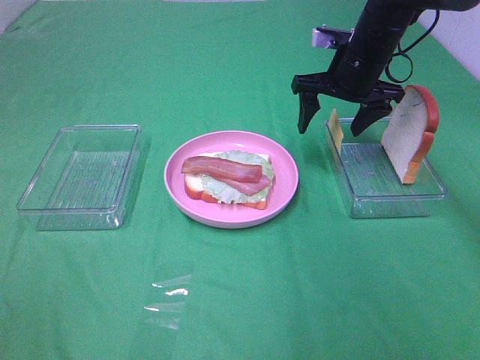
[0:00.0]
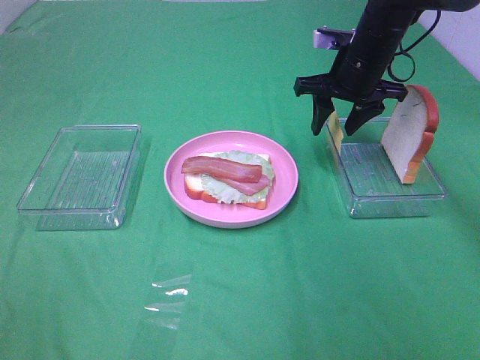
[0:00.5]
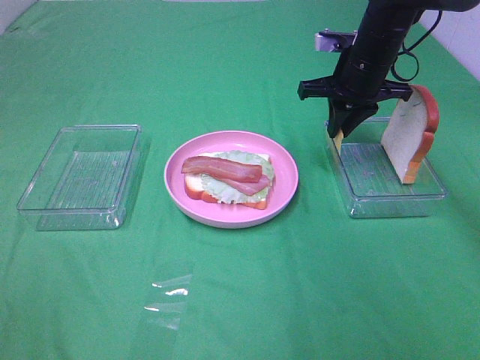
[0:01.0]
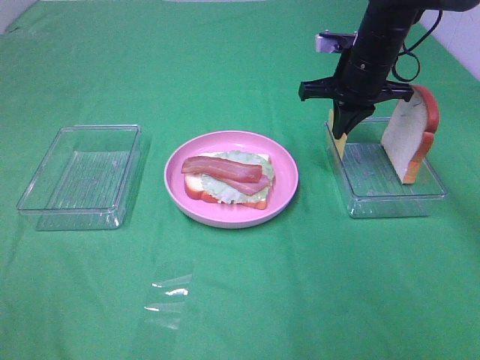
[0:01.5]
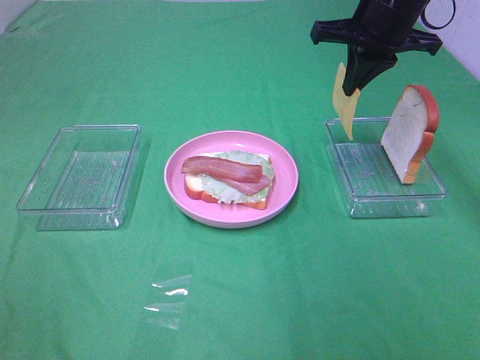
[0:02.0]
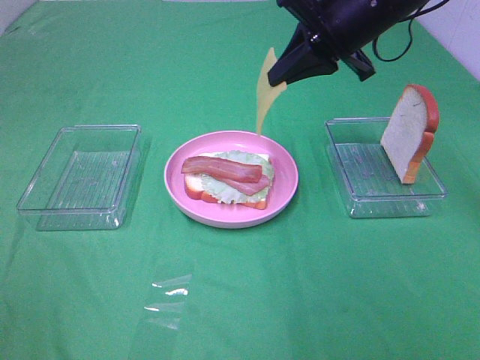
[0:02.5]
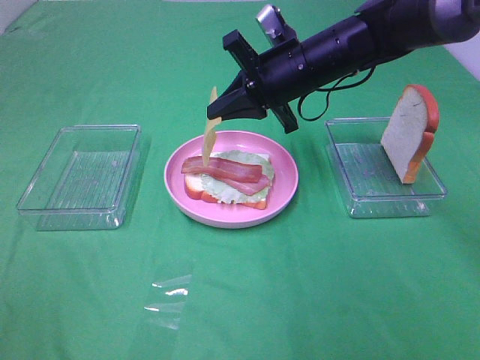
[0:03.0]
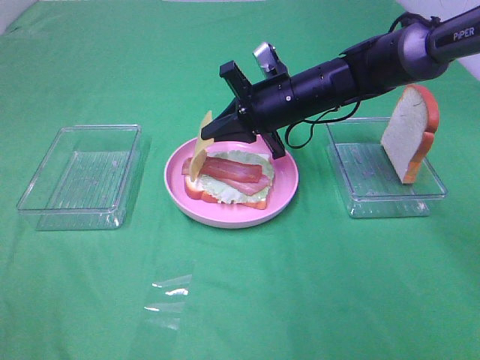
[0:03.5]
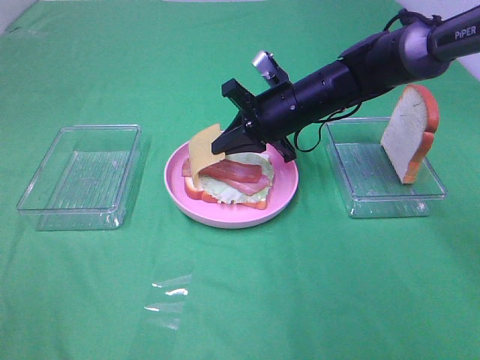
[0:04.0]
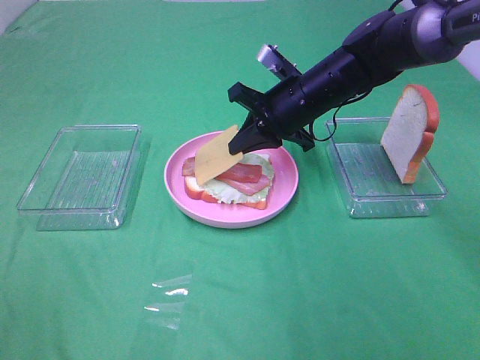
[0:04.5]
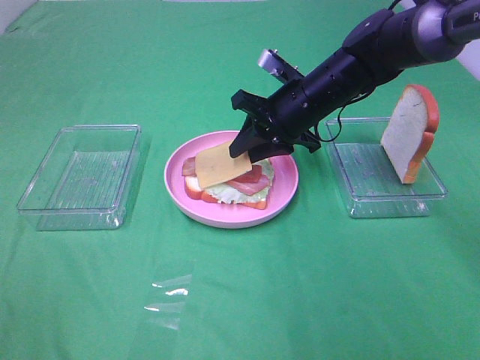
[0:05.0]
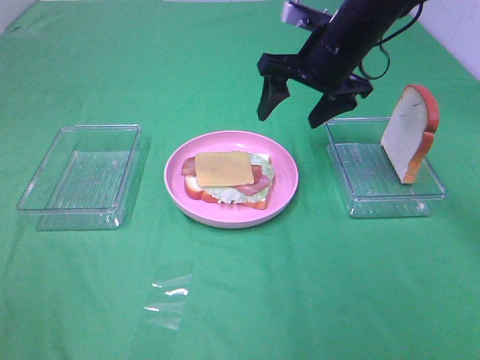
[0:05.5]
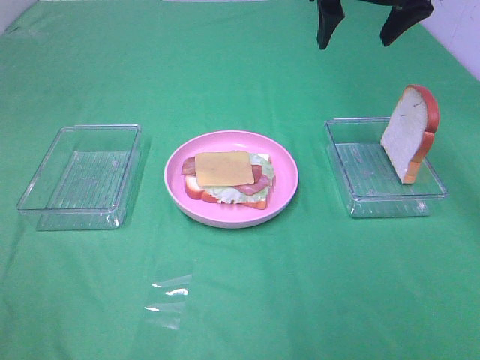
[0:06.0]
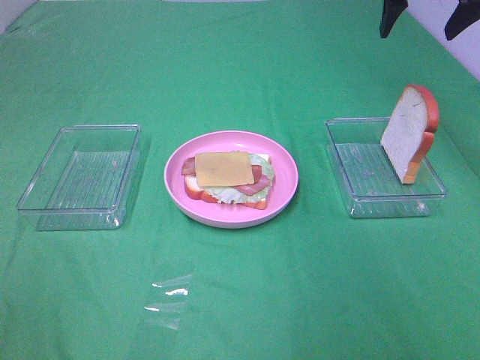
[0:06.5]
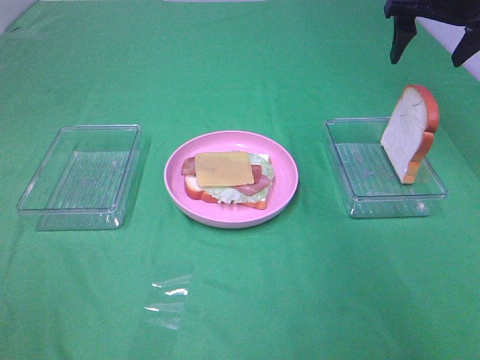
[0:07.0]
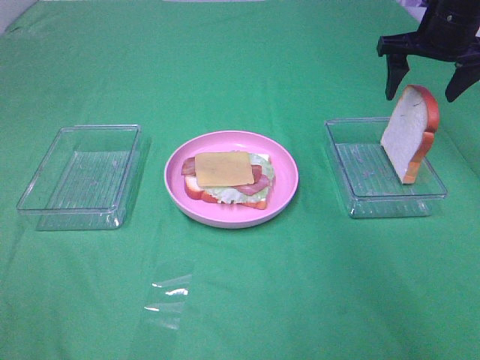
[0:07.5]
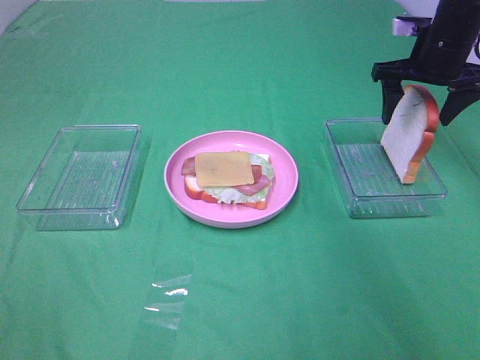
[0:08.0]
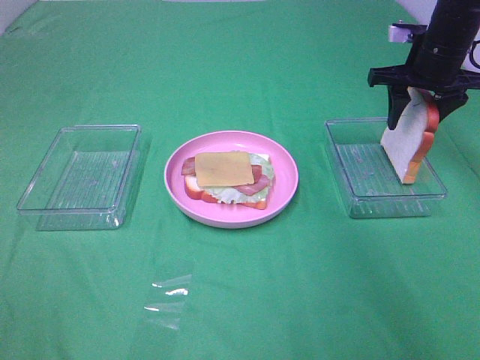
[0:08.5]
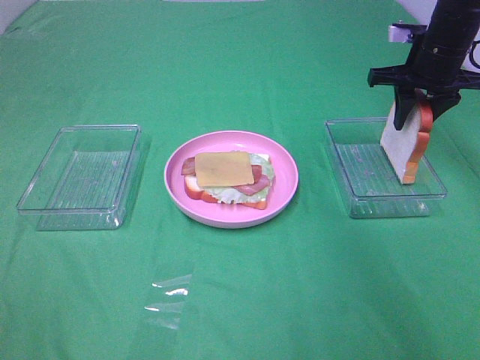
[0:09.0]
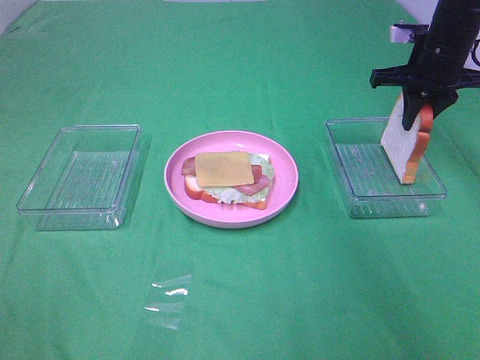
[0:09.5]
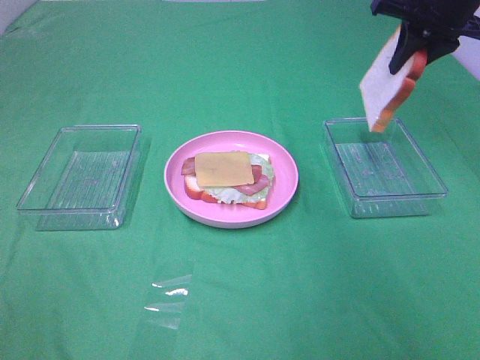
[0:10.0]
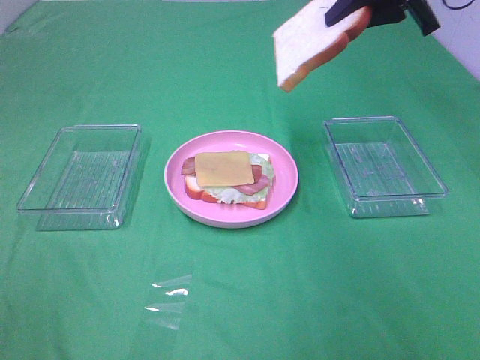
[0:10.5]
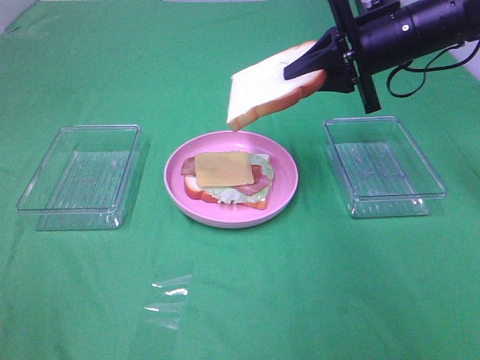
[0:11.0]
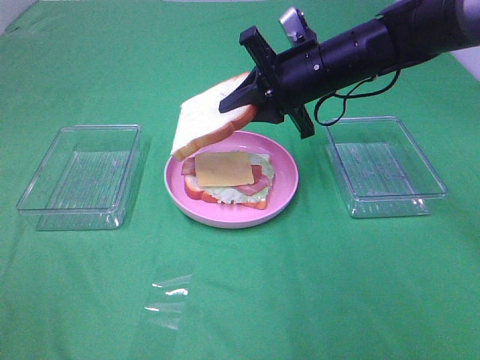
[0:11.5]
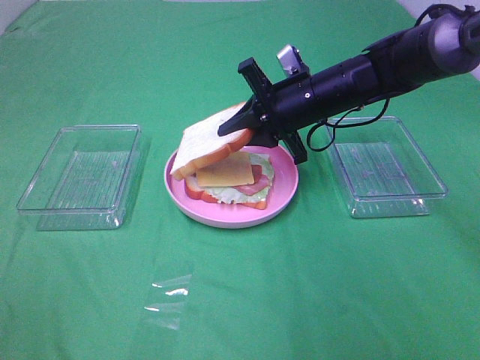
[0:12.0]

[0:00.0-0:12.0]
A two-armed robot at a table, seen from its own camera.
Task of the whole recording: Make sandwiches.
Step, 0:01.5 to 0:05.0: Right hand:place the cheese slice on top of the bacon.
Step, 0:05.5 to 0:09.5: Right hand:grab the bread slice.
0:00.0 to 0:02.0: The right gripper shifts approximately 10 cm upward, and closes.
0:02.0 to 0:04.0: The right gripper heads downward and to the left, covering some 15 cm.
0:04.0 to 0:06.0: The right gripper moves upward, approximately 20 cm, and opens.
0:06.0 to 0:08.0: The right gripper goes about 15 cm downward and to the right.
0:08.0 to 0:10.0: The right gripper moves upward, approximately 10 cm, and closes up.
0:10.0 to 0:12.0: The right gripper moves downward and to the left, some 20 cm.

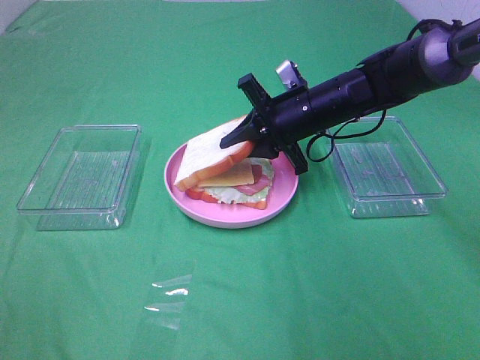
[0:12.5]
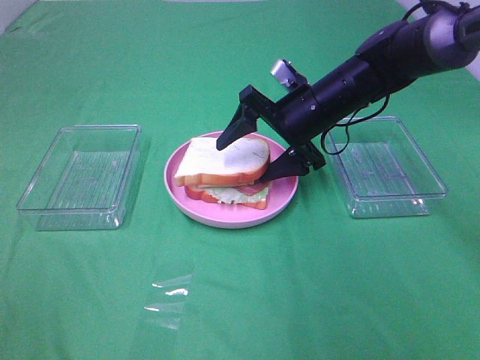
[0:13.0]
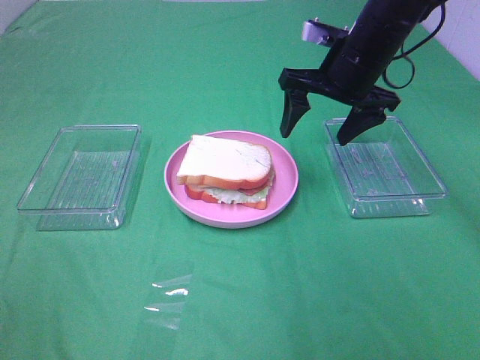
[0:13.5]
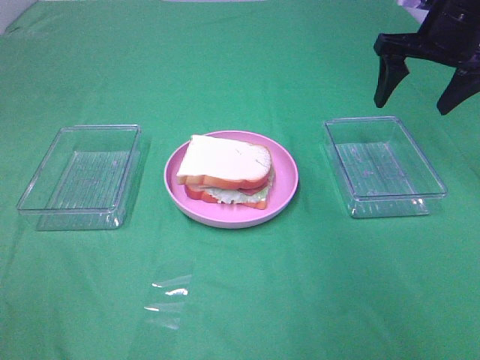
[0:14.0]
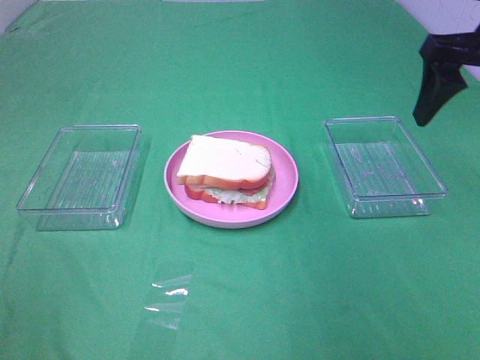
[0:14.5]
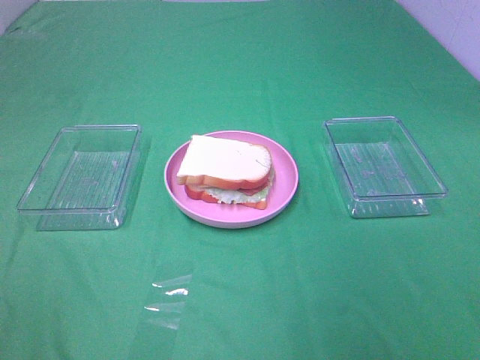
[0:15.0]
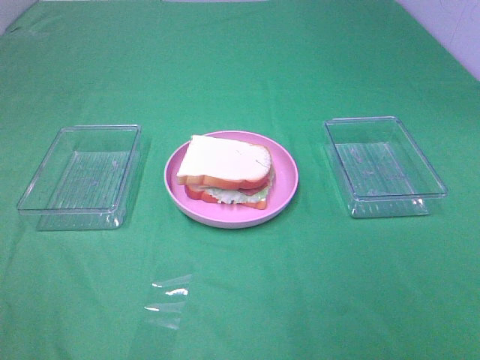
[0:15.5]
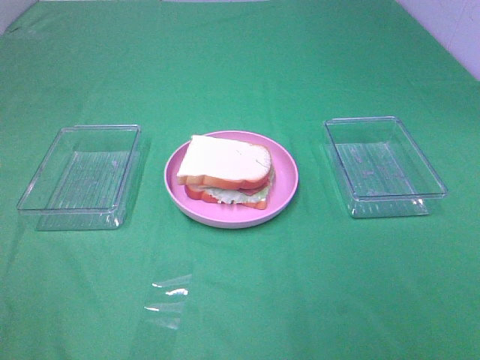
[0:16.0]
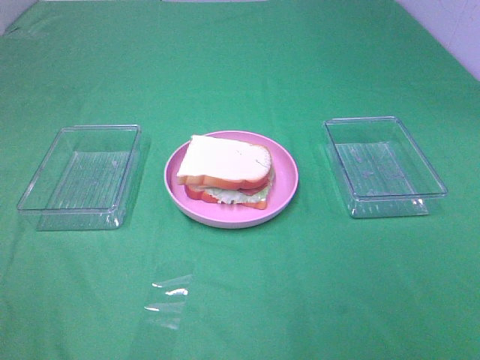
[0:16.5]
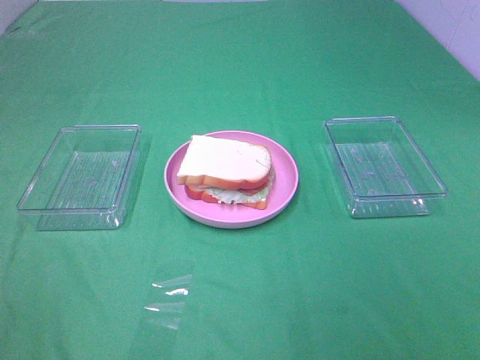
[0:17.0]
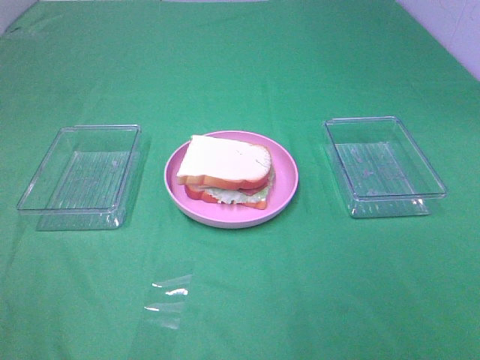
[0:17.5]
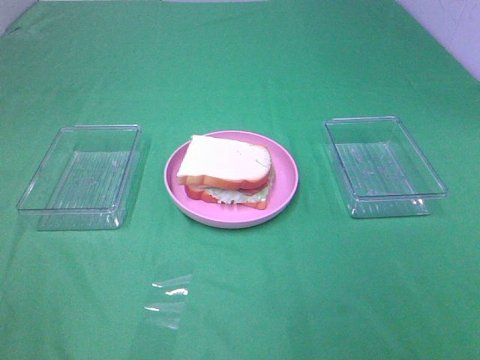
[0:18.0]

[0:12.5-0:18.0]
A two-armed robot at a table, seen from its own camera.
Task of the whole recording: Make sandwiches.
0:12.5 to 0:14.5: The right gripper goes roughly 25 cm upward, to the right and backward, and opens its fingers.
0:14.5 to 0:16.0: The right gripper moves backward, about 30 cm.
0:16.0 to 0:18.0: Both grippers stay put.

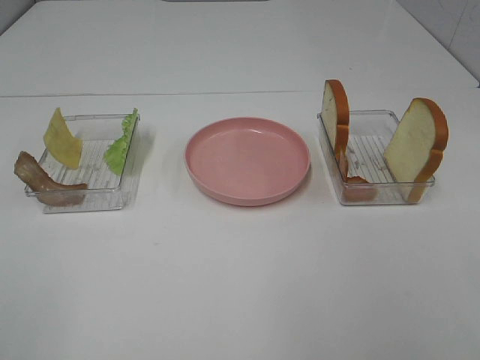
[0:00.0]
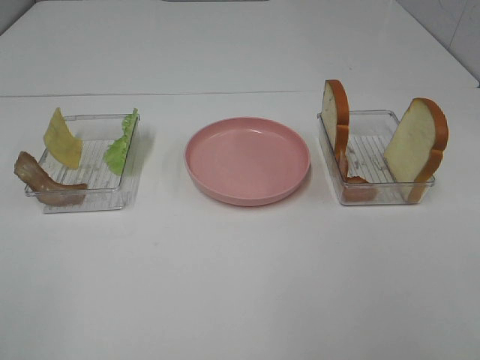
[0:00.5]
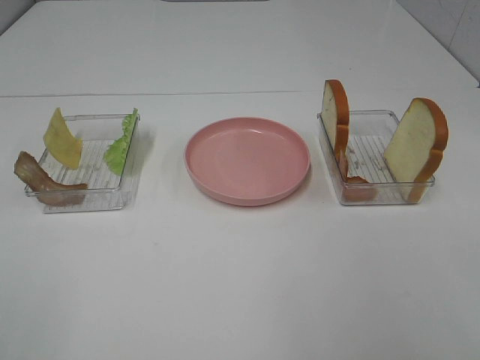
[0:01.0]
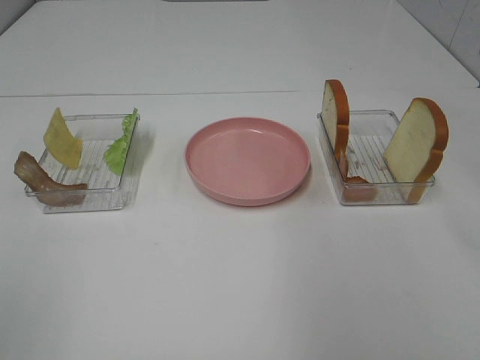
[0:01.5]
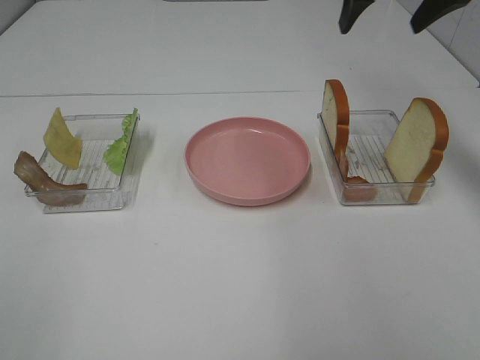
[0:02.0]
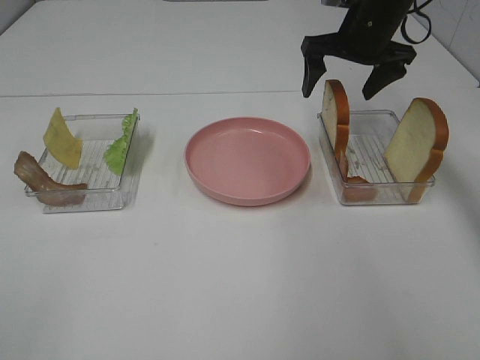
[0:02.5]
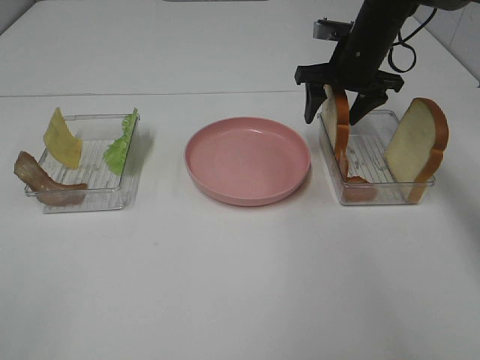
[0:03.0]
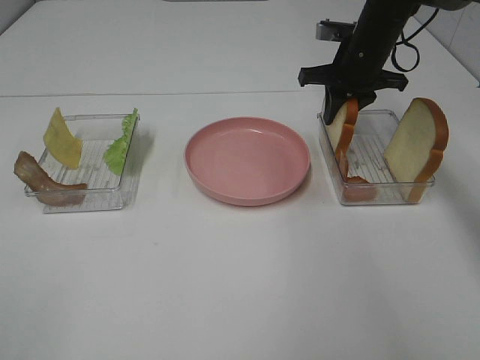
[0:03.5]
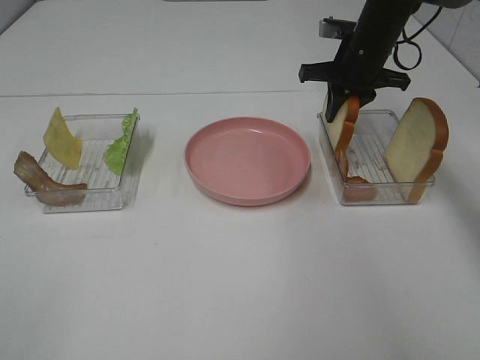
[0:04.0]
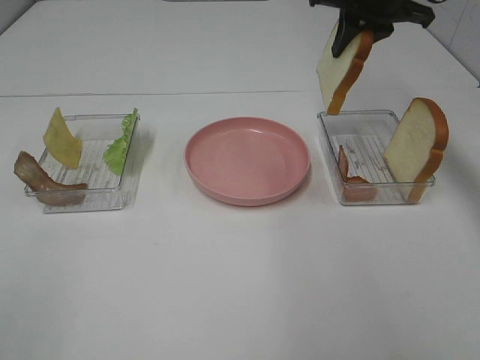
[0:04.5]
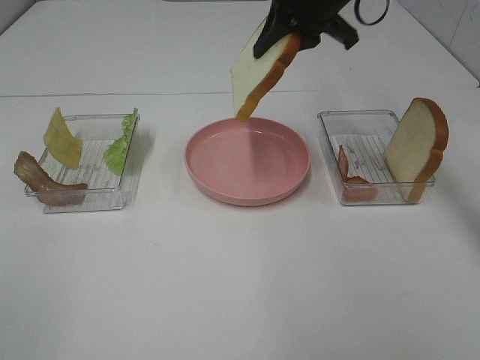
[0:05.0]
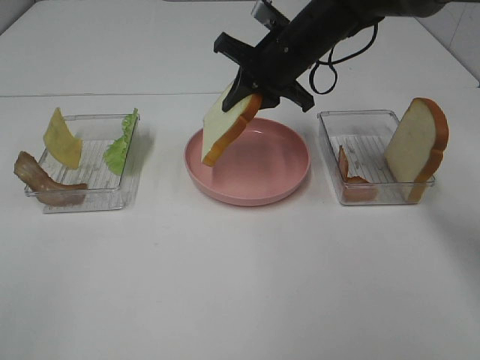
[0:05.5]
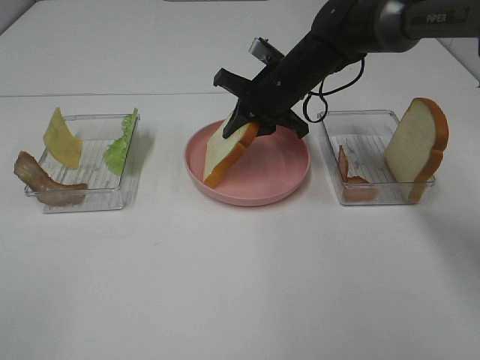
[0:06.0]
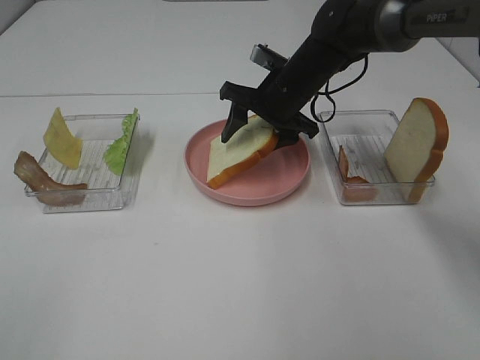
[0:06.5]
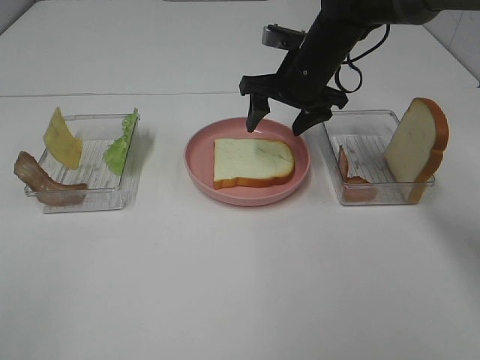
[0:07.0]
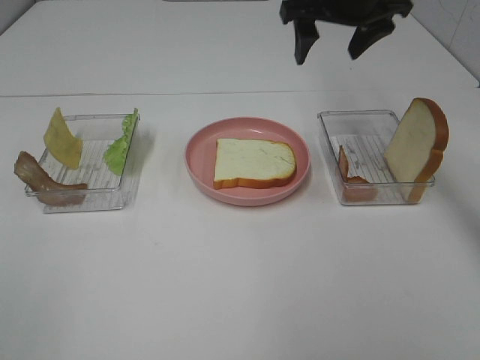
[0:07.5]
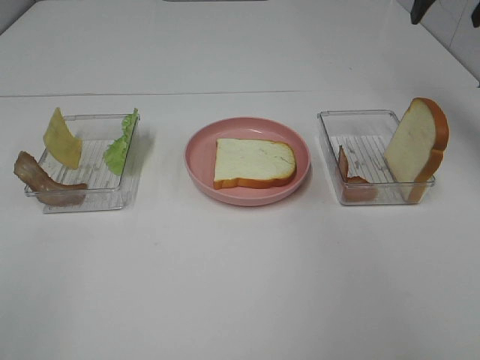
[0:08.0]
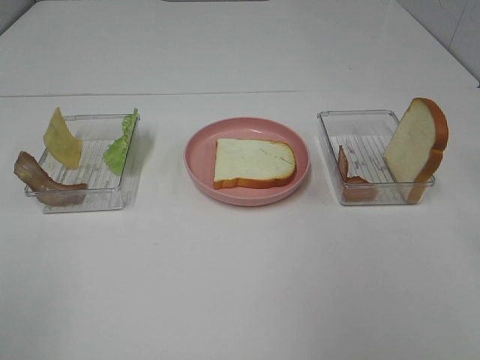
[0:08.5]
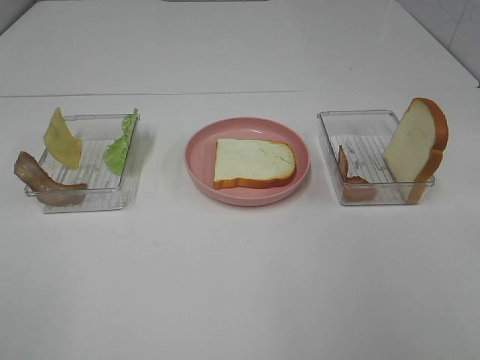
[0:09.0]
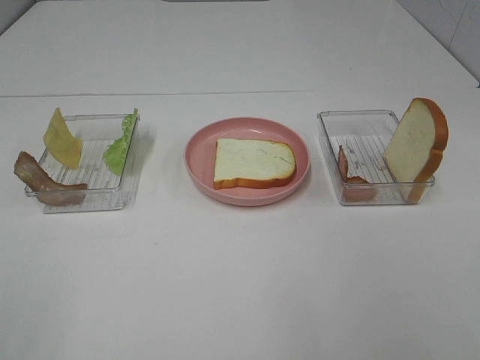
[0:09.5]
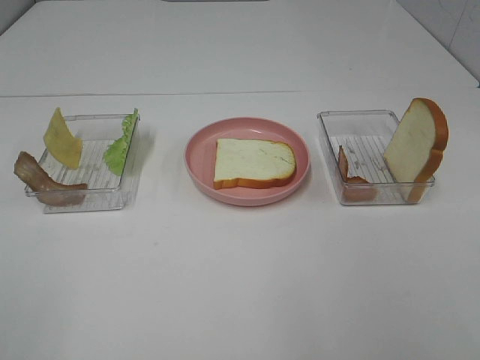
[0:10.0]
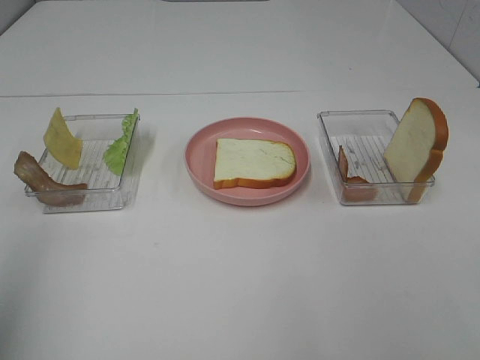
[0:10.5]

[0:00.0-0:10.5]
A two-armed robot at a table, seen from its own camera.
Task of the whole recording: Make sandwiches.
Step, 0:00.0 to 0:04.0: Right hand:grab the bread slice.
Step, 0:04.5 to 0:07.0: Right hand:place the bread slice on the plate.
0:00.0 to 0:02.0: The right gripper shifts roughly 40 cm forward.
0:02.0 to 0:04.0: The right gripper goes some 15 cm downward, and closes.
0:04.0 to 0:06.5: The right gripper moves to the left, approximately 10 cm, moves approximately 10 cm upward and comes back, and opens.
0:06.5 to 0:08.5: The right gripper moves backward, to the right and upward, approximately 40 cm.
